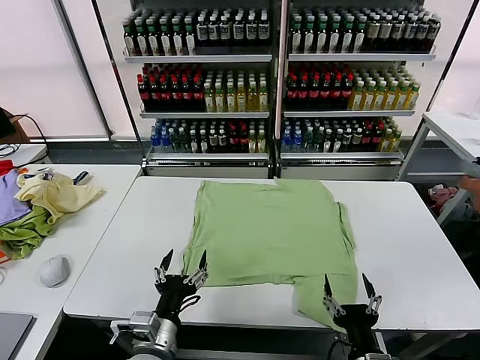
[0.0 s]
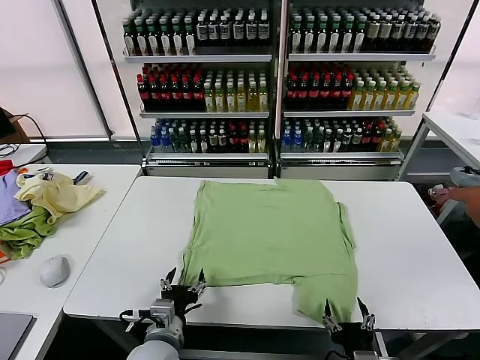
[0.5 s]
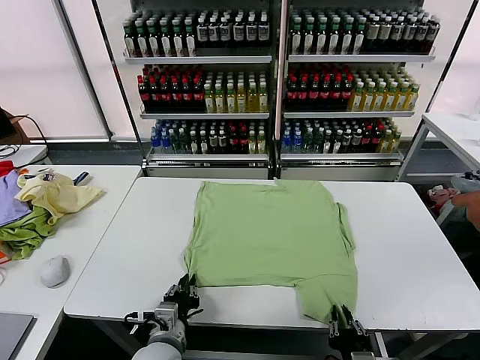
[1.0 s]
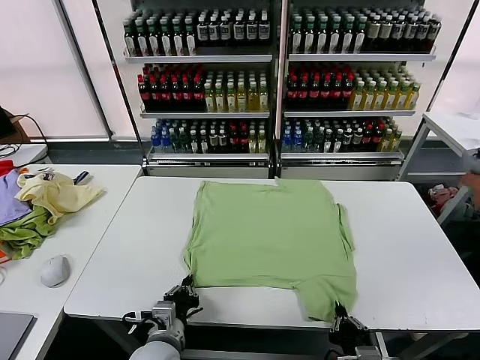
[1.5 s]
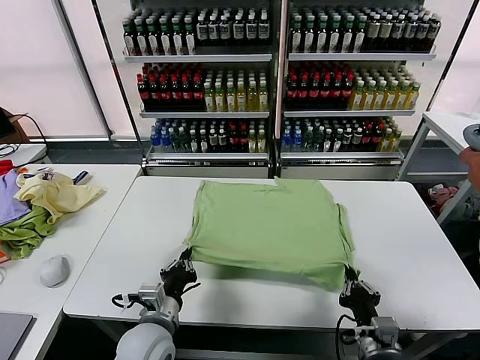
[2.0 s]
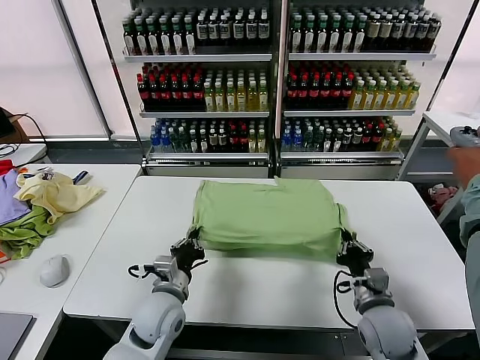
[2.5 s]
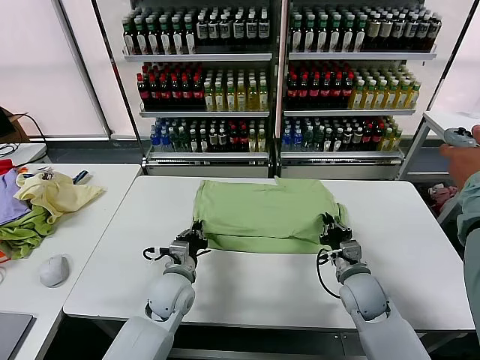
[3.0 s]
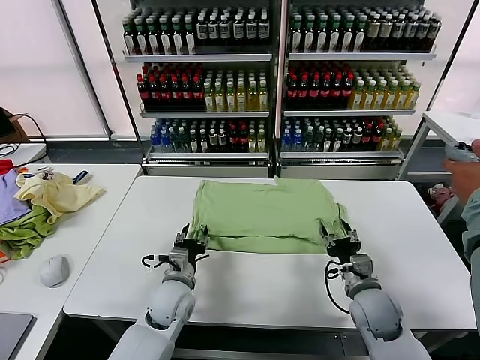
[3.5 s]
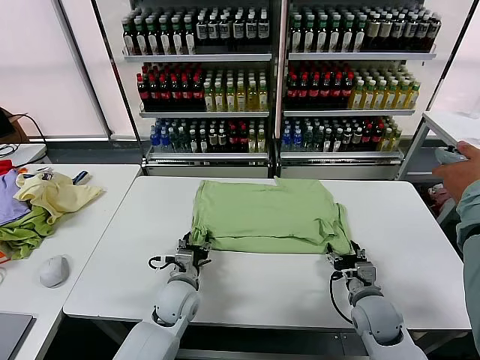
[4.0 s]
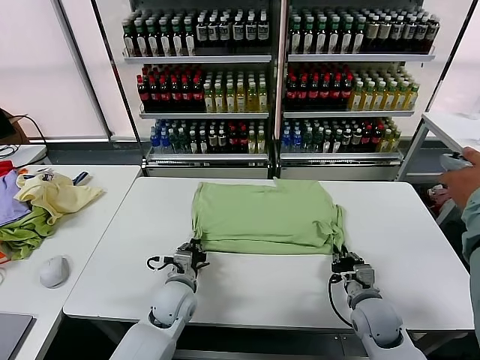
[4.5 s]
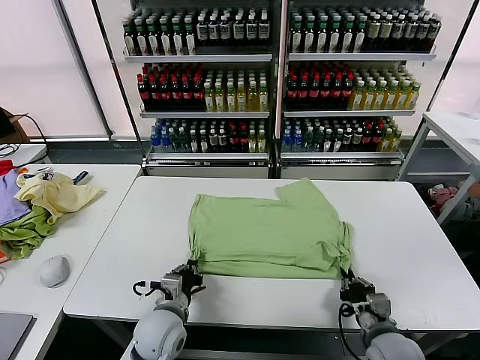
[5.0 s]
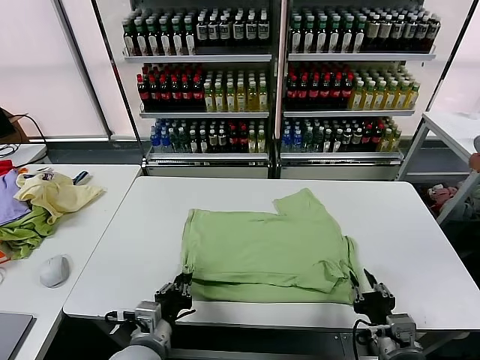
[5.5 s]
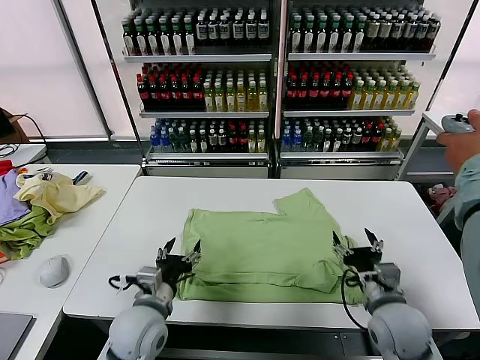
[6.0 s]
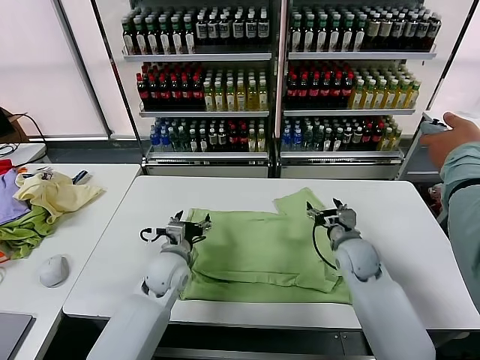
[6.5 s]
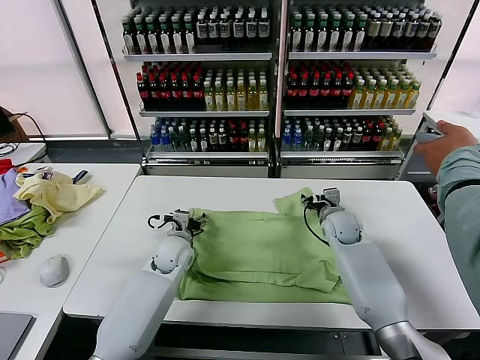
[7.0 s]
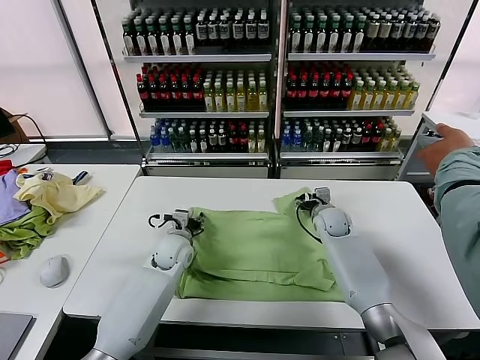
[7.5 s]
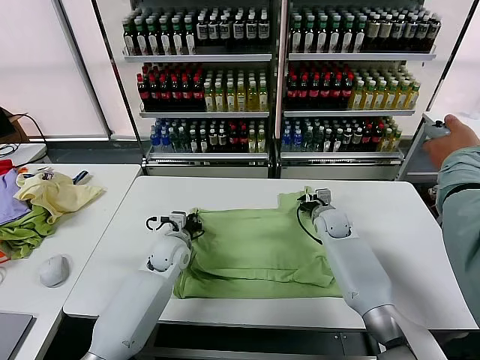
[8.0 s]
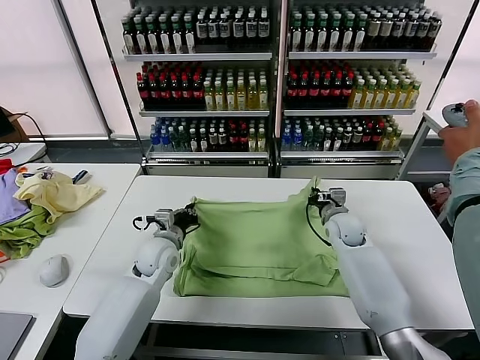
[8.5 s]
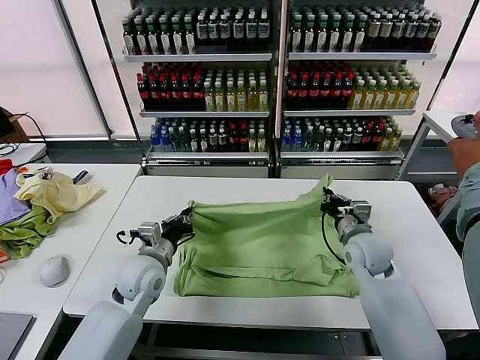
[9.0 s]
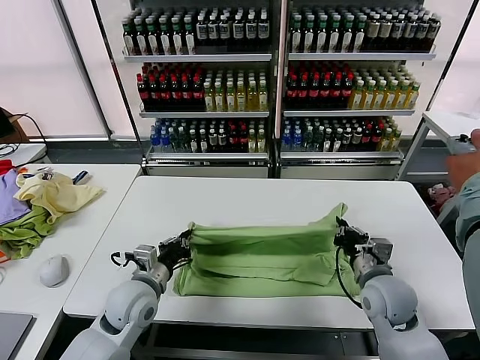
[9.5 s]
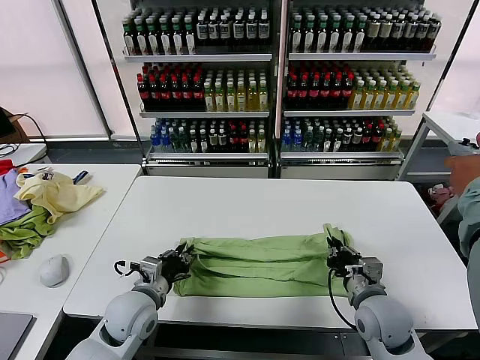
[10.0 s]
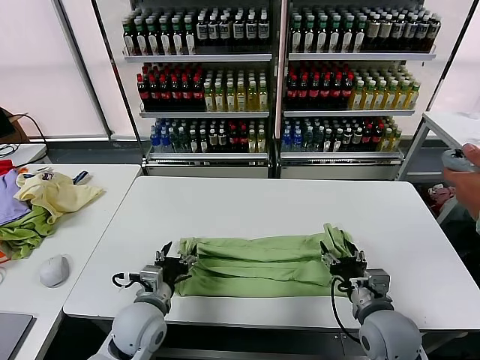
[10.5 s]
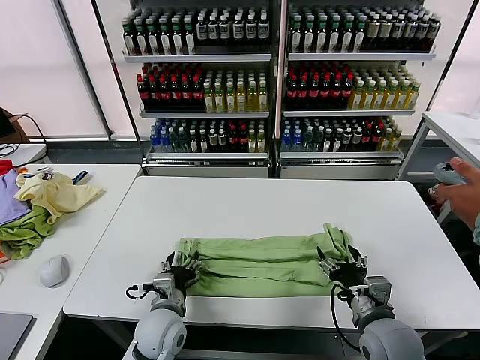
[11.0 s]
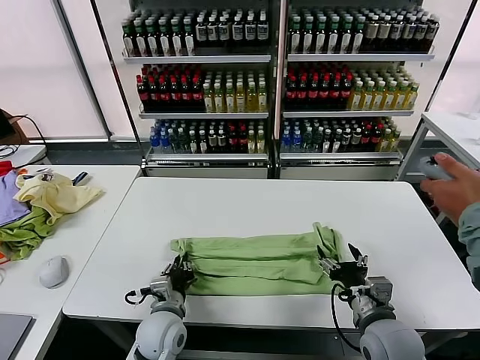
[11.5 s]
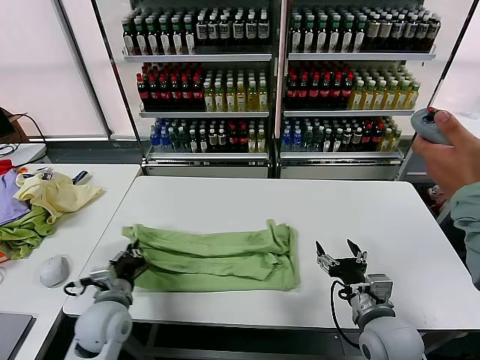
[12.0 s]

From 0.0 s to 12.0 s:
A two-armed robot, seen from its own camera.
Task of the whole recording: fold and organize the clothes.
Step, from 0.0 s to 1.0 s: use both grippers simultaneously to clamp the lower edge of the clothing fabric.
Step, from 1.5 s to 3.0 s: use both grippers to drag the lower edge of the fabric forward and fold it over the upper edge.
Step, from 3.5 s to 5.5 s: Drag the clothes downward with both gripper.
Step, from 6.0 s to 8.0 s: use both grippers simultaneously to clamp the upper edge of the clothing fabric.
Step, from 8.5 s to 10.0 s: use both grippers to drag the upper edge of the fabric backward and fold it over the lower edge.
Step, from 10.5 s to 11.5 s: use the left gripper to clamp the left edge of the fabric.
From 2.0 s to 4.0 s: The left gripper is displaced forward and downward by approximately 15 cm, and opens its fingers. The right gripper travels forward by some 10 cm, and opens.
From 4.0 s to 6.0 s: The left gripper heads backward and upward, covering roughly 10 cm, and closes, then opens again, while the right gripper moves upward, roughly 10 cm, goes backward and returns, some 15 cm each way, and closes and opens again.
From 6.0 s to 8.0 s: The grippers both shift forward by about 20 cm. The left gripper closes its fingers. The right gripper closes.
From 8.0 s to 10.0 s: The right gripper is displaced backward by some 25 cm, while the left gripper moves backward, roughly 15 cm.
From 10.0 s to 12.0 s: The left gripper opens and closes again; the right gripper shifts by approximately 5 cm, and opens up.

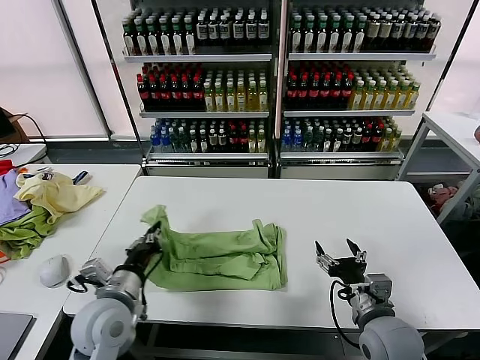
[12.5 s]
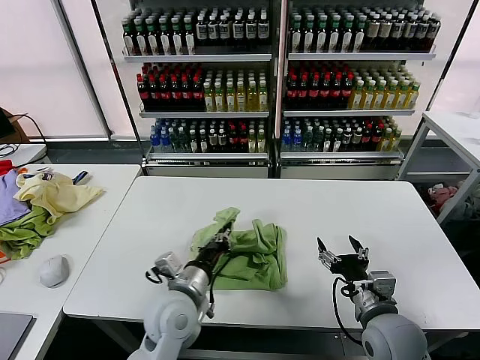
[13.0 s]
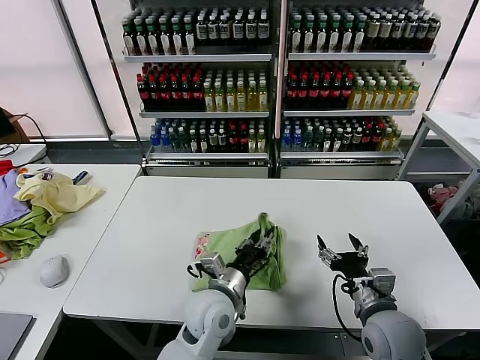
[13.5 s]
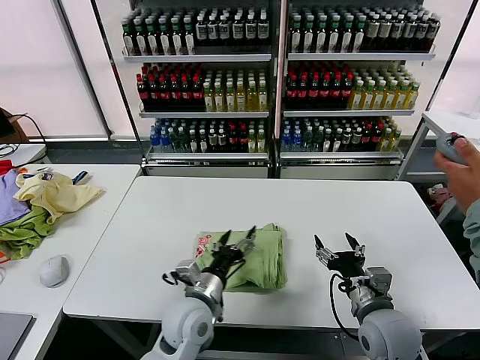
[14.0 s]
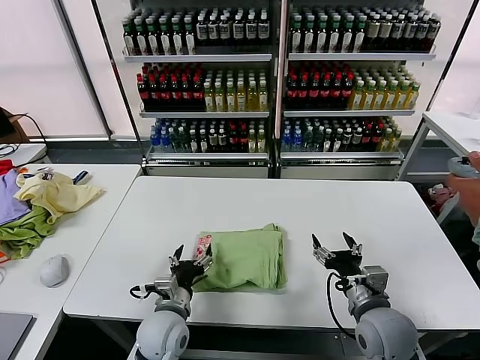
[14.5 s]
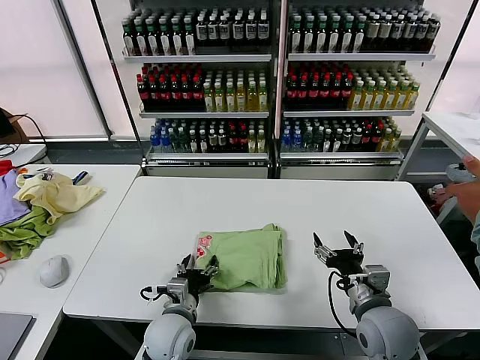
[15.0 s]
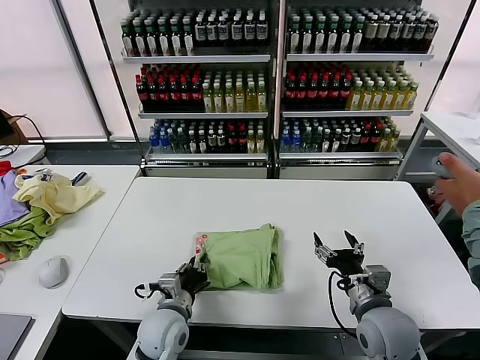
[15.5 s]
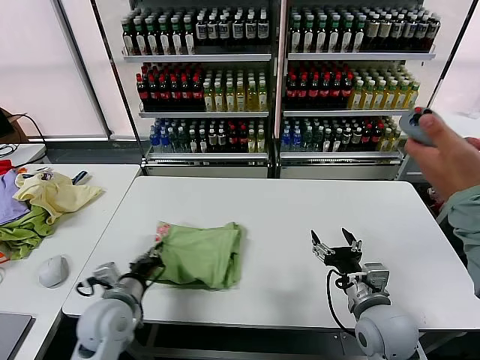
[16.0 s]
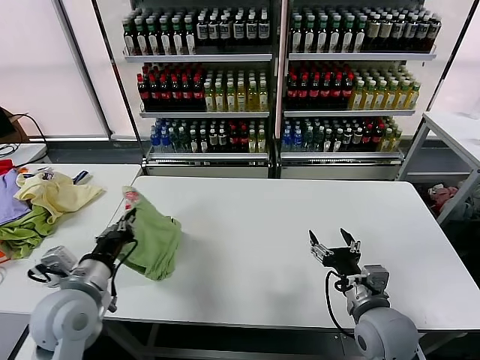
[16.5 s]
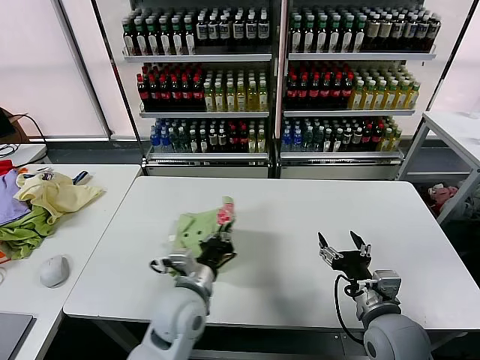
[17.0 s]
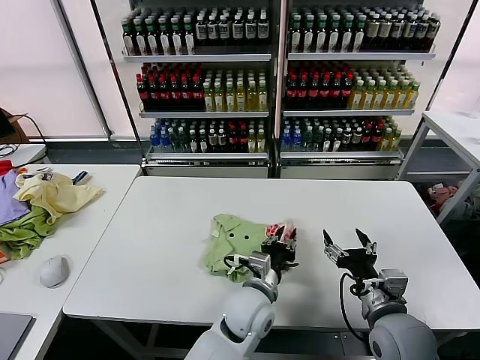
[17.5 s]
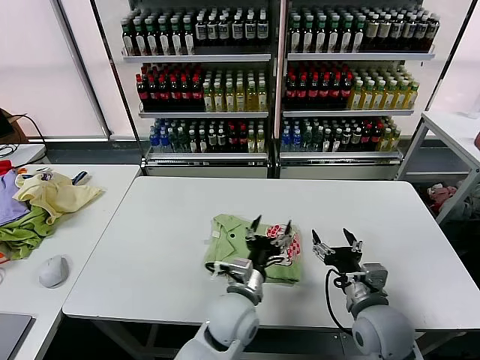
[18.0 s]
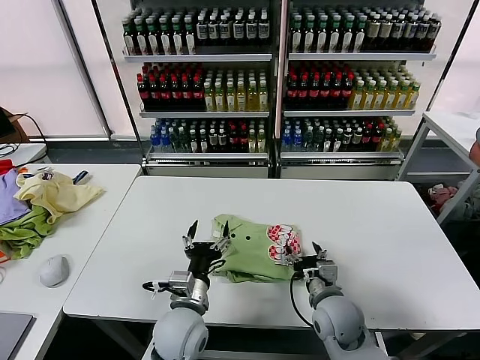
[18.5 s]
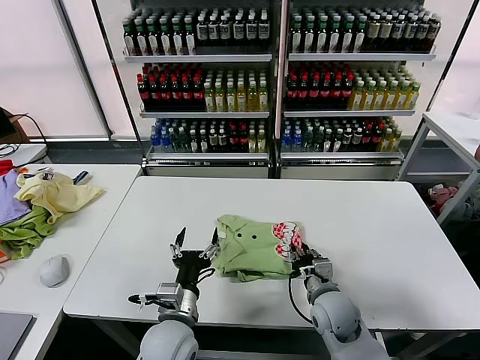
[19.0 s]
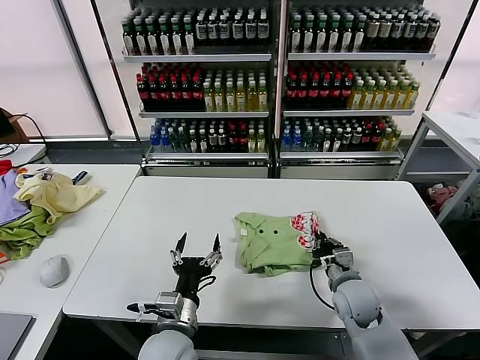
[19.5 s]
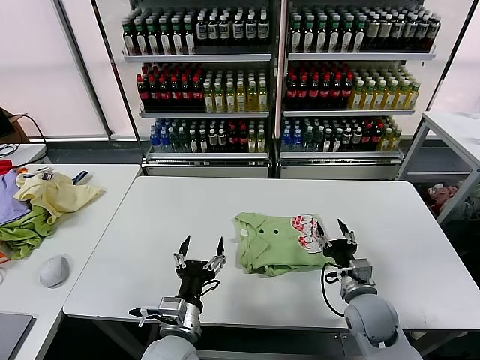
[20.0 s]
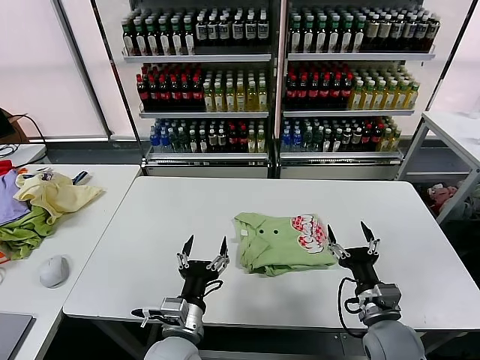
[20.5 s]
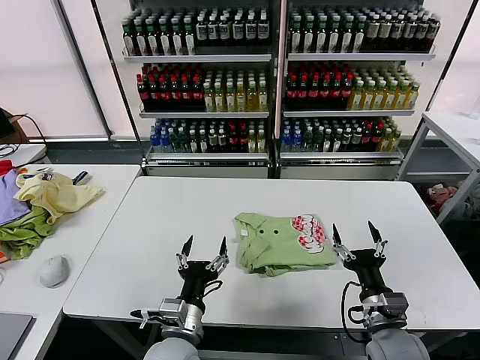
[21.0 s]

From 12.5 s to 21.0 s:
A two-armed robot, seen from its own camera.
Task of the whole recording: fold and organize the clothes.
Step, from 12.5 s to 13.5 s: use the left gripper to drag the left edge of the fabric to the left and folds it over the right edge.
Step, from 14.0 s to 17.5 s: Flip the folded clothes over with left gripper.
Step, from 18.0 s to 19.5 s: Drag the clothes to the center of the table.
From 12.5 s to 14.5 s: The left gripper goes about 15 cm to the right and downward, and opens up.
From 14.5 s to 16.5 s: The left gripper moves to the left and upward, about 20 cm, and closes.
From 16.5 s to 19.0 s: The right gripper goes roughly 10 cm downward, forward and to the left, and closes its fingers; the left gripper is displaced to the right and downward by some 20 cm, and opens its fingers.
From 19.0 s to 21.0 s: The right gripper shifts approximately 10 cm backward and to the right, and opens.
